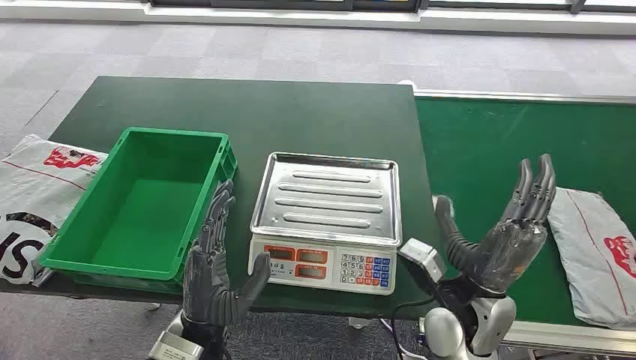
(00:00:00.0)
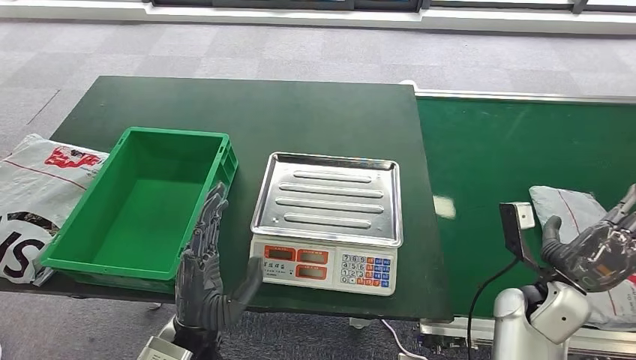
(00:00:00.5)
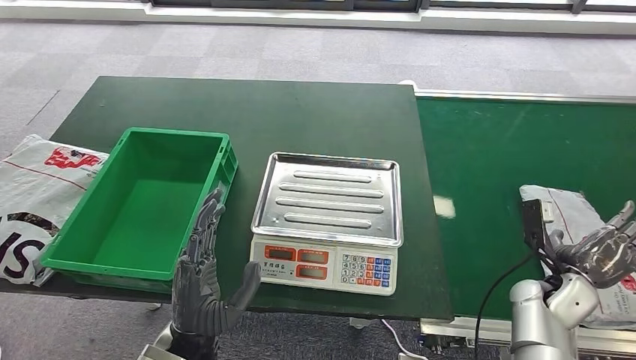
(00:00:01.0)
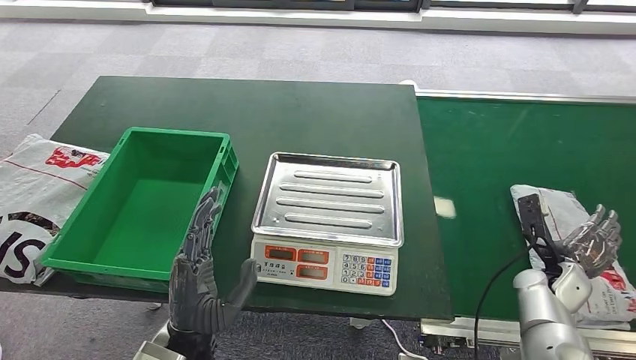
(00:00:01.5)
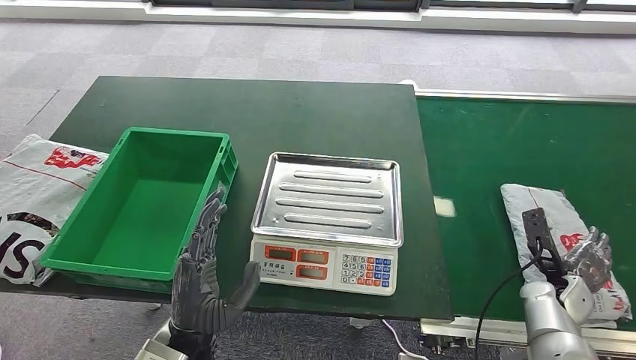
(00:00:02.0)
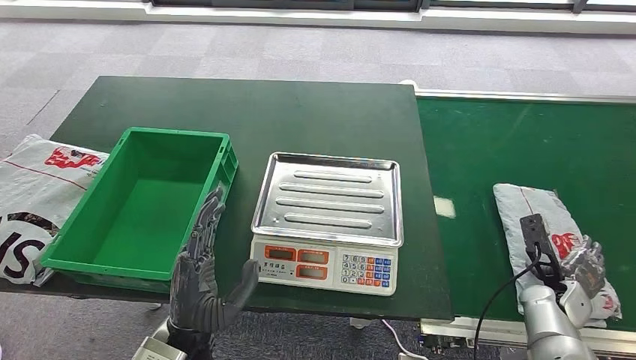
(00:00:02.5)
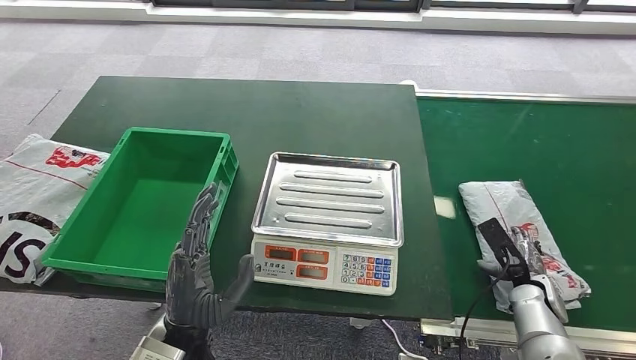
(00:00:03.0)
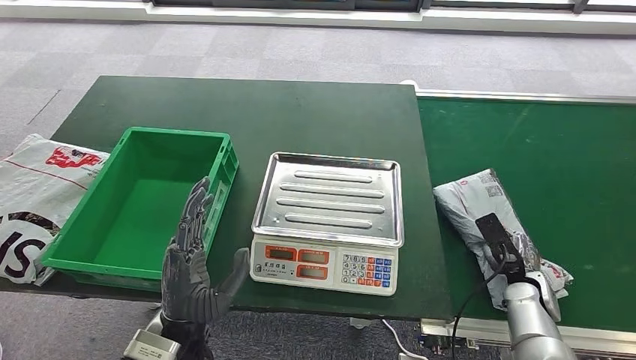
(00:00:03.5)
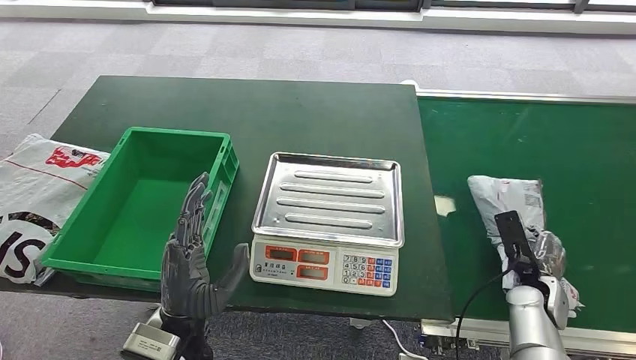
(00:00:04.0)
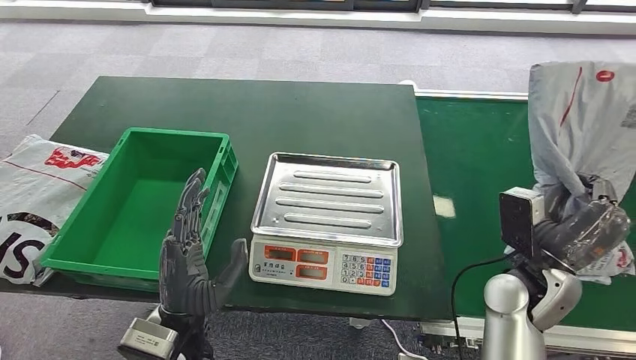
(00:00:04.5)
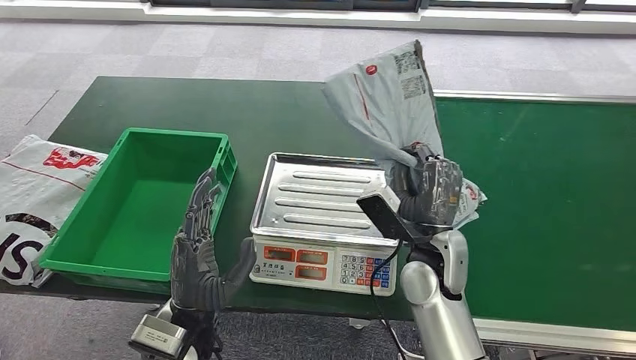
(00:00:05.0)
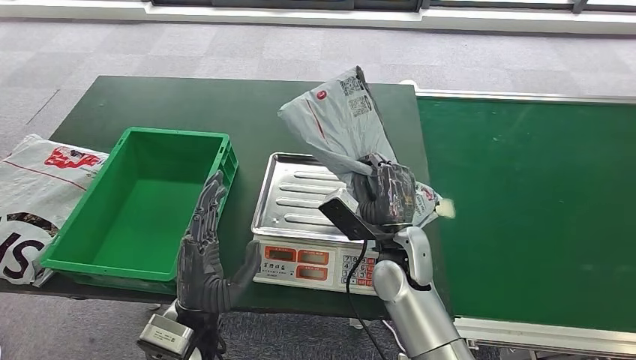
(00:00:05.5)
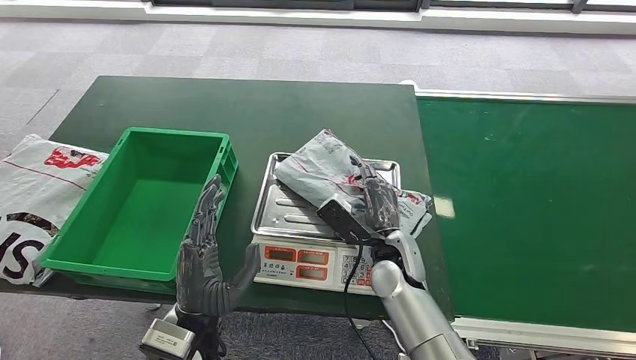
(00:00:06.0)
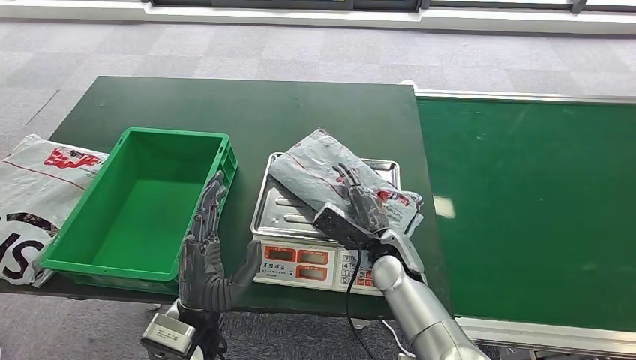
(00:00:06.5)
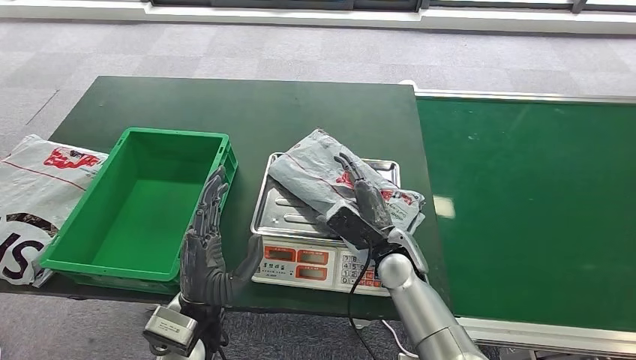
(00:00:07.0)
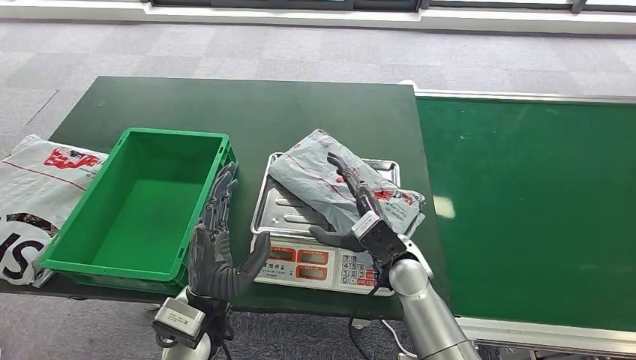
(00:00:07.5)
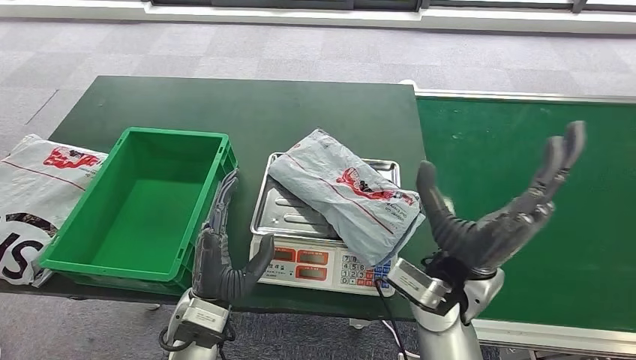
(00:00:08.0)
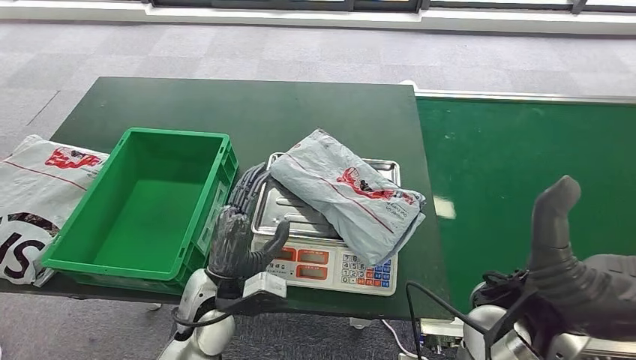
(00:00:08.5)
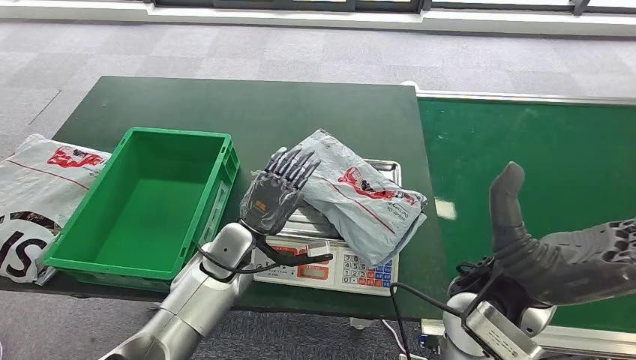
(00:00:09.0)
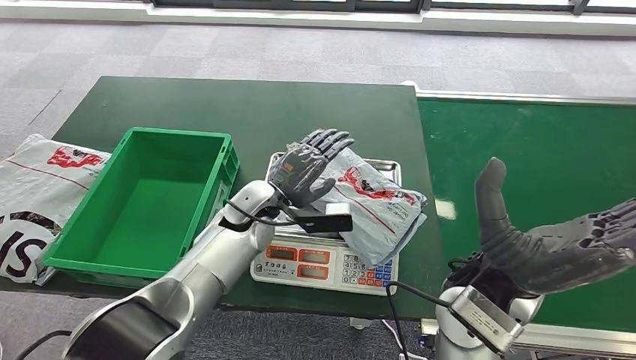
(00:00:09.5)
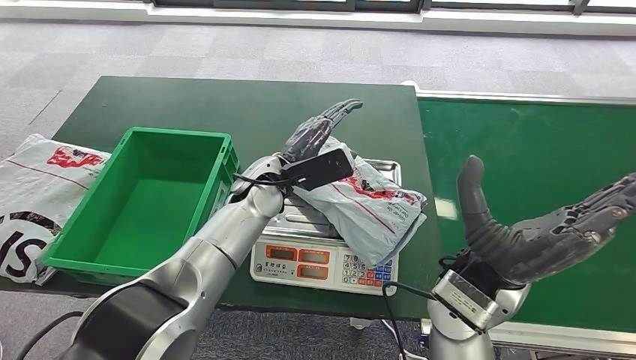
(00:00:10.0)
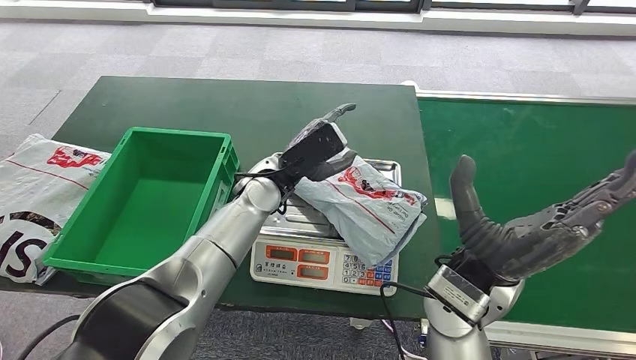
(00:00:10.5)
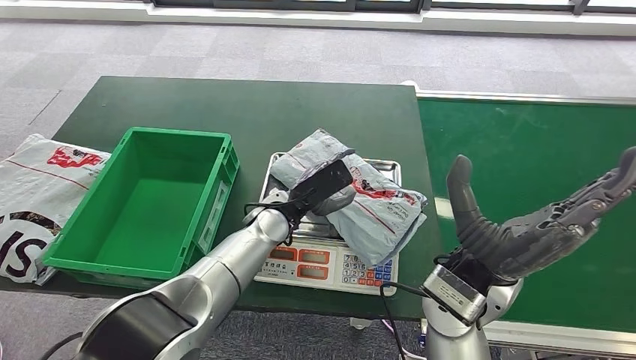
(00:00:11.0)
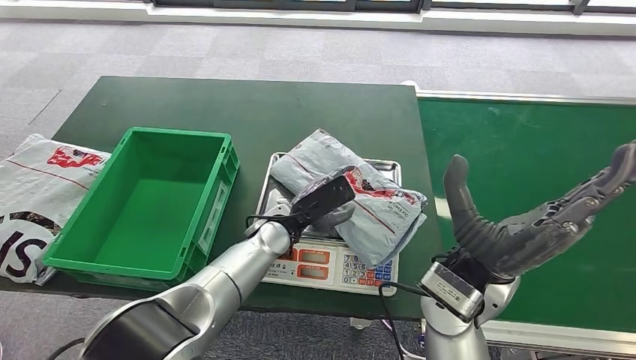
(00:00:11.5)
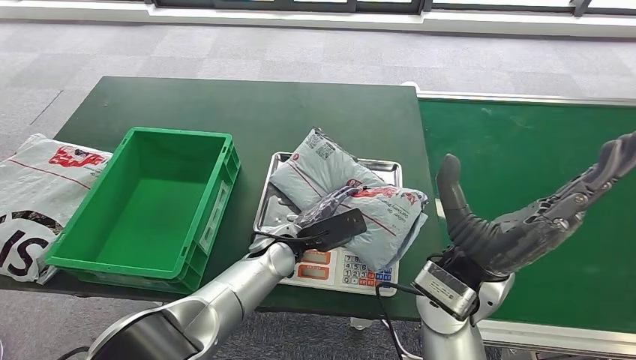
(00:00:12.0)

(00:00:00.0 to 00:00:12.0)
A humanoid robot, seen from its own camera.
Step, 00:00:00.0 - 00:00:04.5: Pick up the package from the conveyor belt.
Step, 00:00:05.0 - 00:00:07.5: Place the package onto the inbound machine.
00:00:04.0 - 00:00:06.0: The right hand goes some 30 cm to the left.
00:00:06.0 - 00:00:08.0: The right hand moves upward and backward, approximately 15 cm.

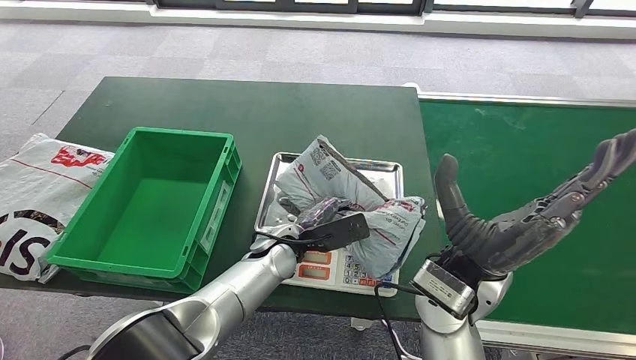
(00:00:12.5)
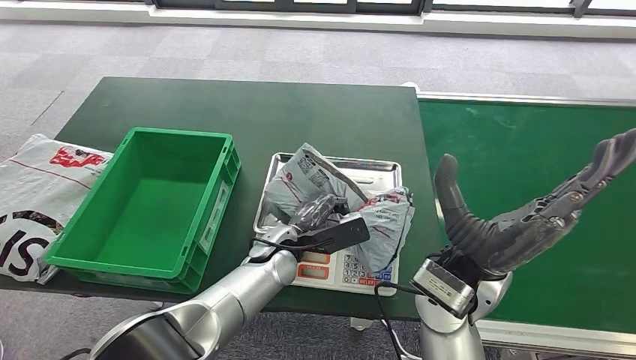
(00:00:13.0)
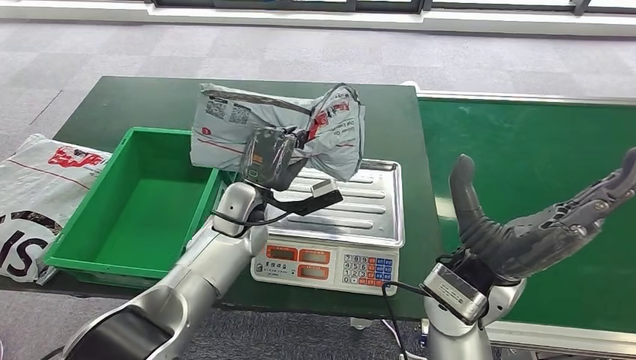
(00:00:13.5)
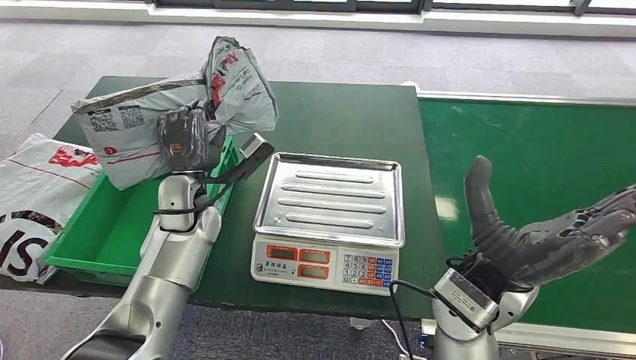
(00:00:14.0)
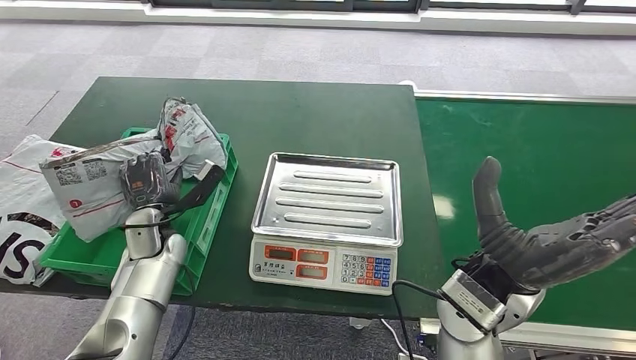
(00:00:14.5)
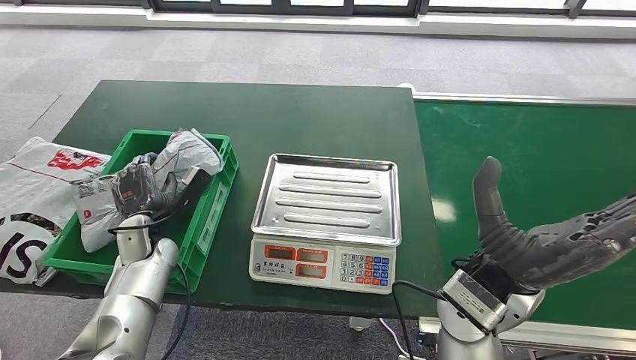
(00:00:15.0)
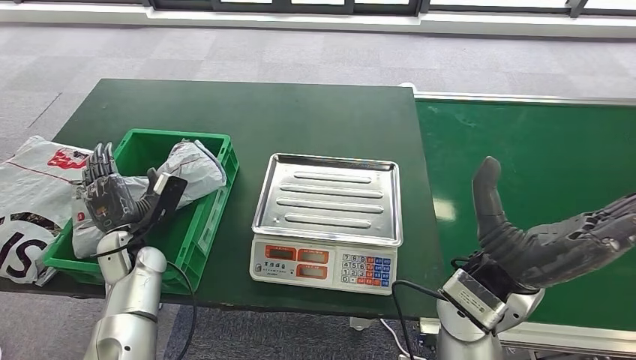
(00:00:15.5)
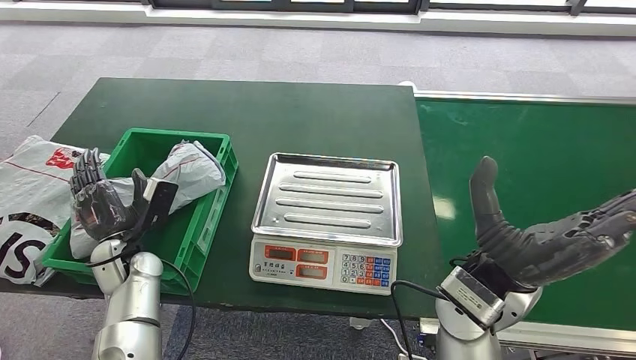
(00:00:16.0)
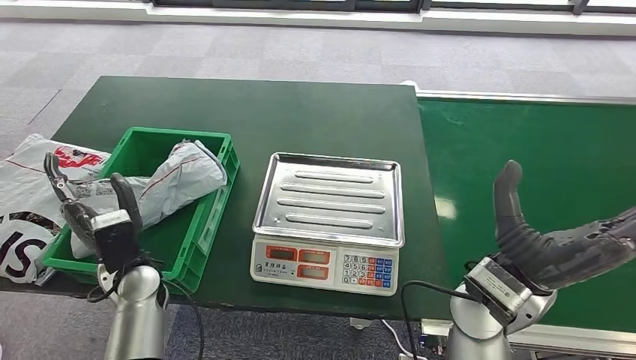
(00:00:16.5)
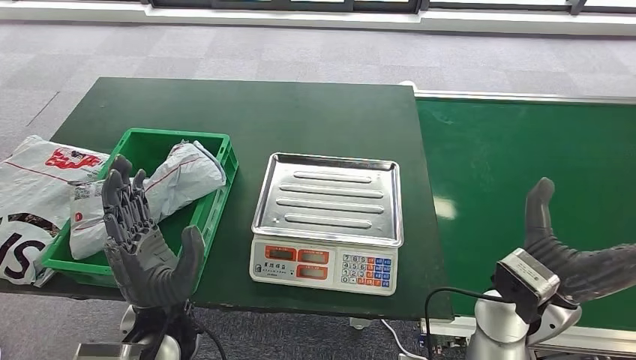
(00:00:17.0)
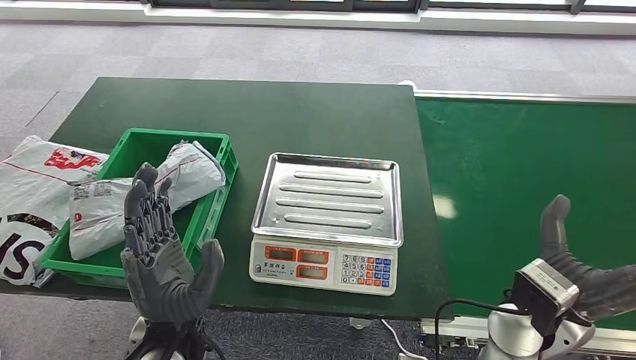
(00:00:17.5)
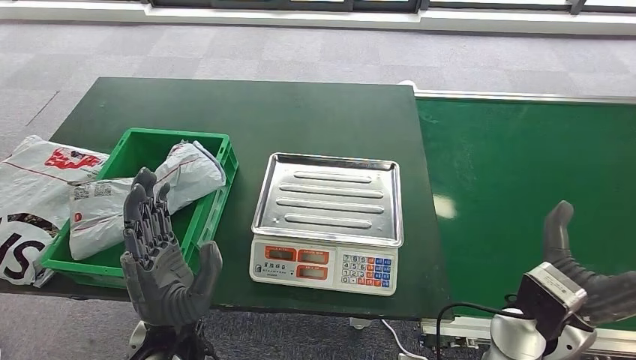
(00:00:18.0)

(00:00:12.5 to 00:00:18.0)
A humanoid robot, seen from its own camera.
Step, 00:00:14.5 - 00:00:18.0: Place the package into the parcel locker.
00:00:14.5 - 00:00:16.0: The left hand moves approximately 5 cm.
00:00:16.0 - 00:00:18.0: The left hand goes some 25 cm to the right, backward and upward; the right hand goes some 10 cm to the right and downward.
